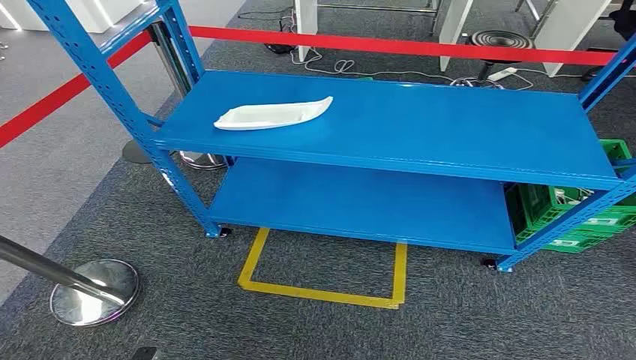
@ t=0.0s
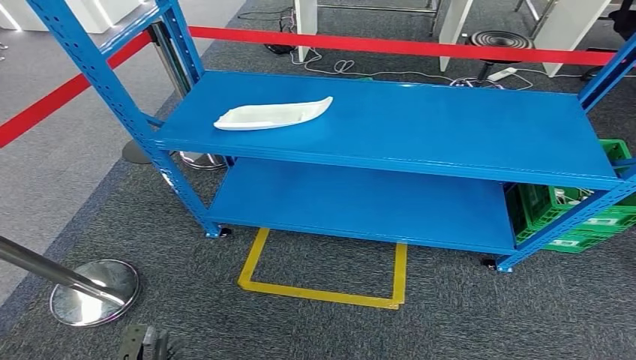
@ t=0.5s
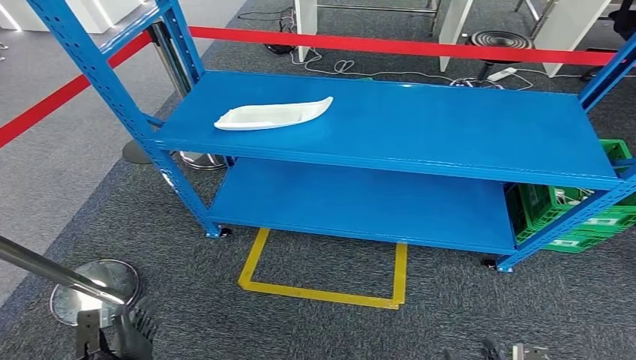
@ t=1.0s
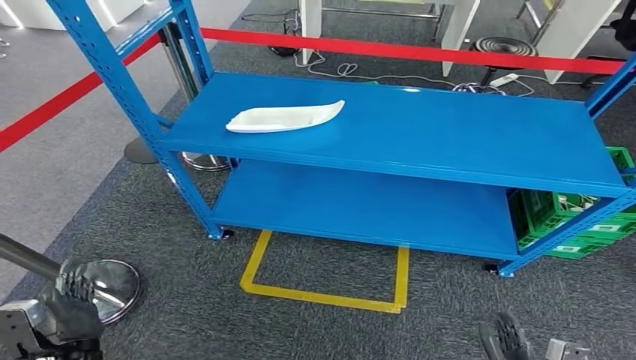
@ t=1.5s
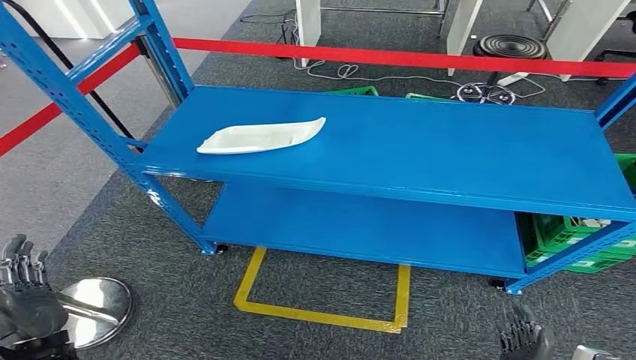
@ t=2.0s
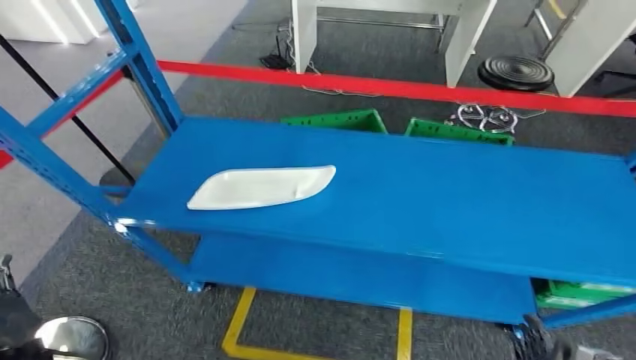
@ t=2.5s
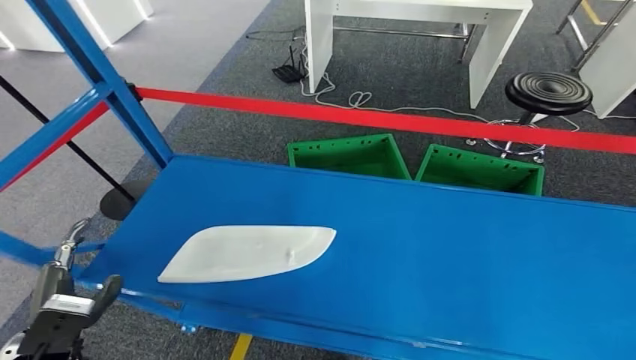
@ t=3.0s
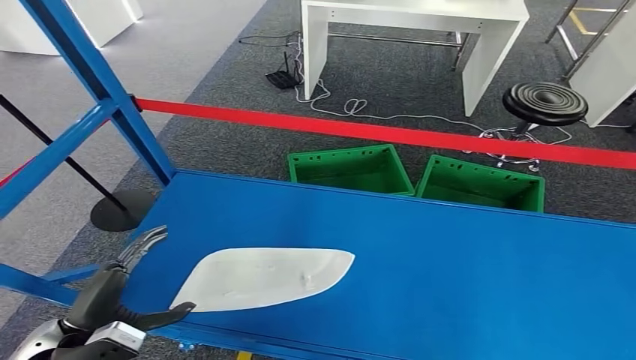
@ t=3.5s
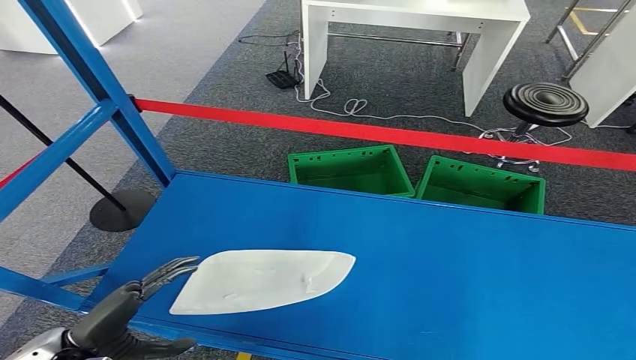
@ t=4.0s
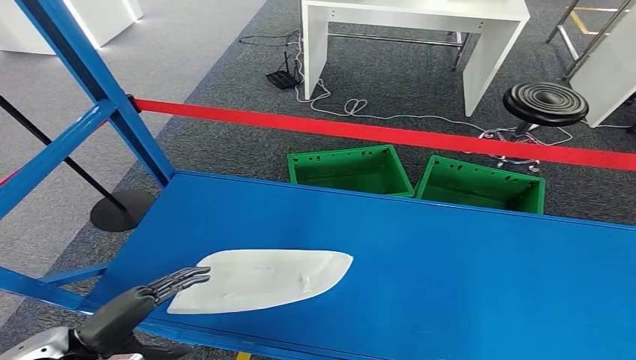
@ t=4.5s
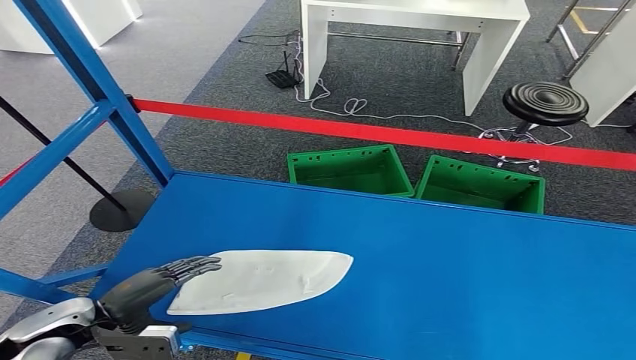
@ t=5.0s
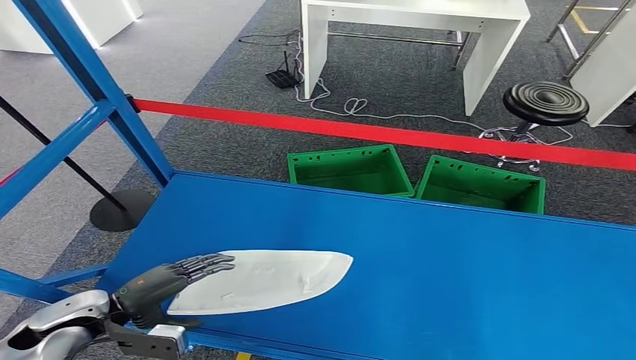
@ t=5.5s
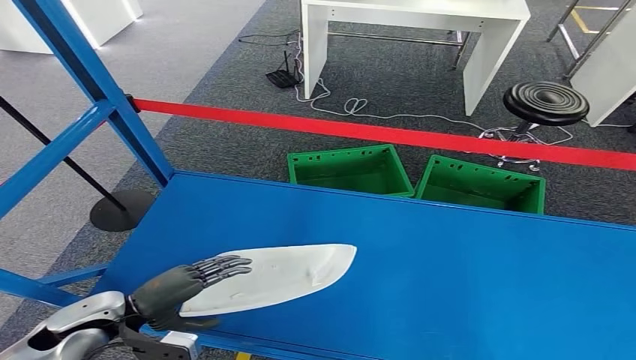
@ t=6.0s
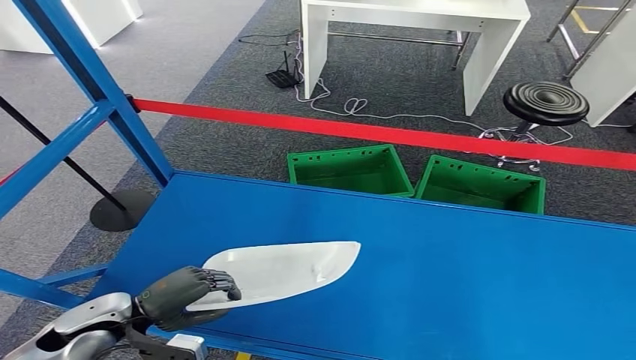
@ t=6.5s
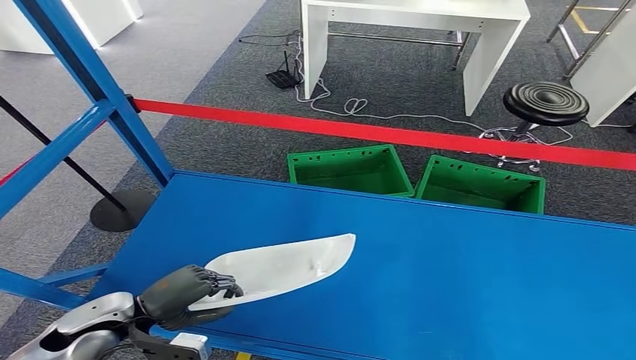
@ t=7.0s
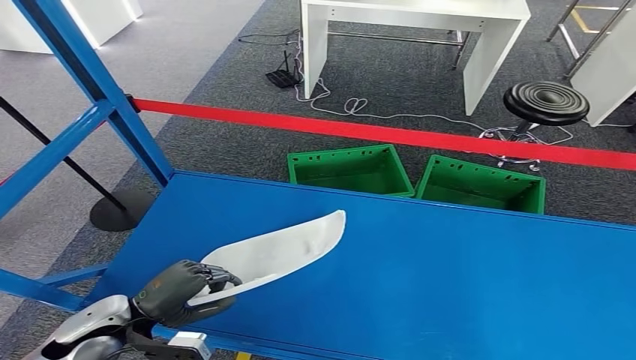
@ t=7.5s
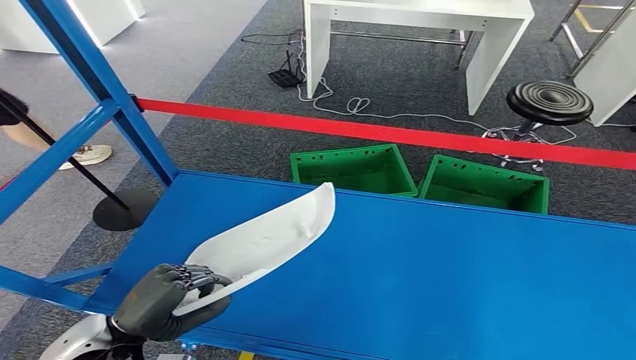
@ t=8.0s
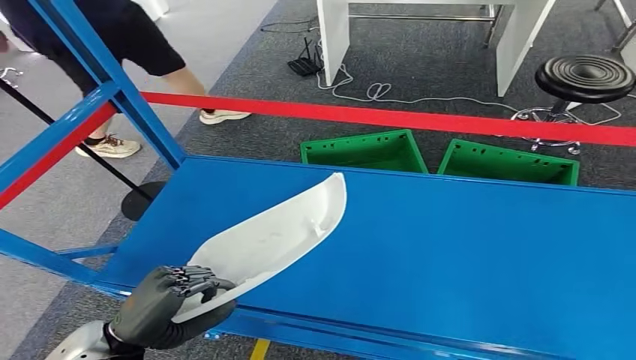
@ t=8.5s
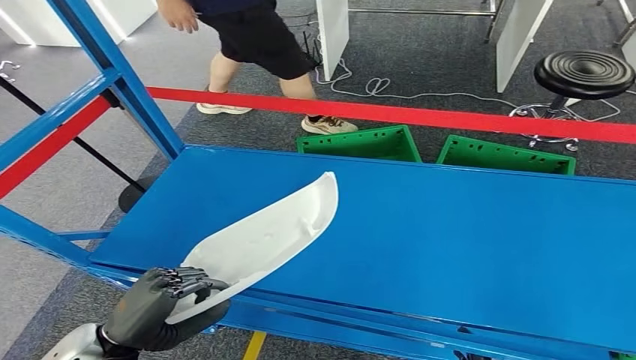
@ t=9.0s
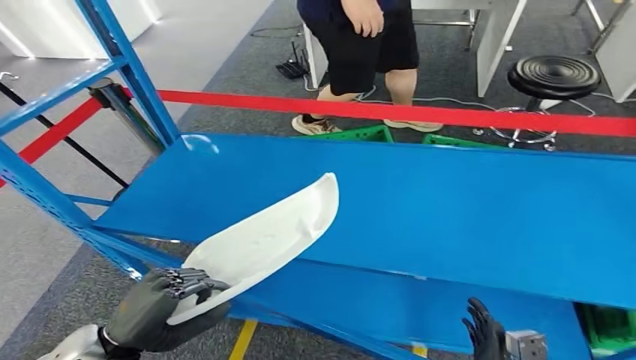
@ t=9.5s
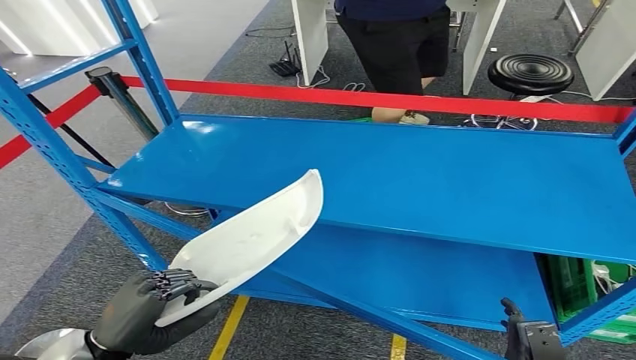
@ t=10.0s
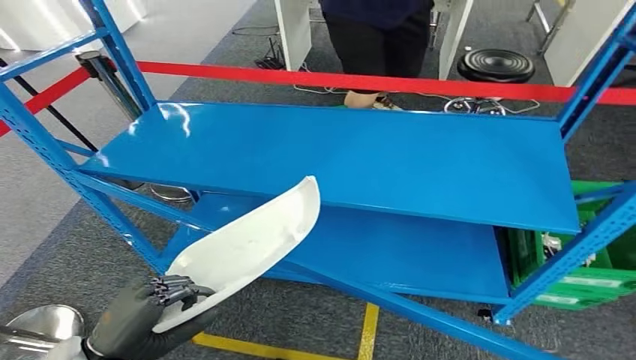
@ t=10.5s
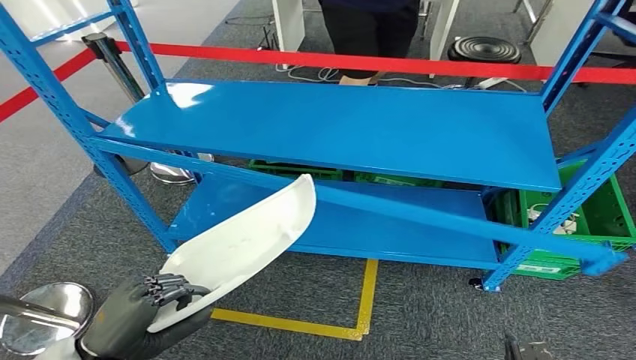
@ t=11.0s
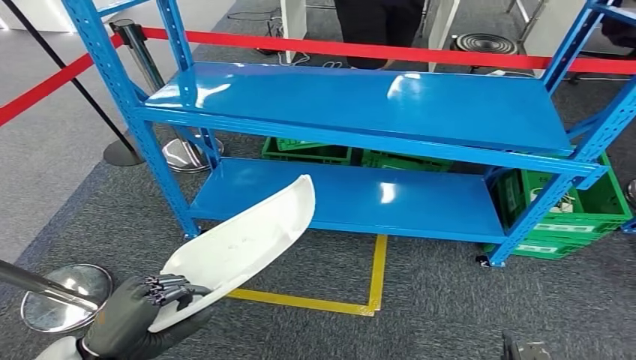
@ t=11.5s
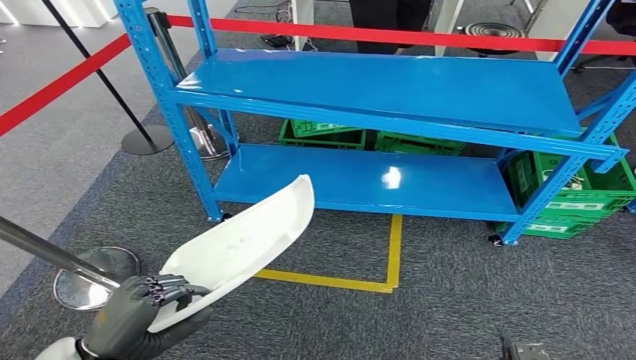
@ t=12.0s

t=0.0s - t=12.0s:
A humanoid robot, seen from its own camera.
Step, t=0.0s - t=8.5s: Pick up the small component from the shelf.
t=4.0s - t=6.0s: The left hand moves forward, approximately 5 cm.
t=6.0s - t=8.0s: The left hand moves about 5 cm.

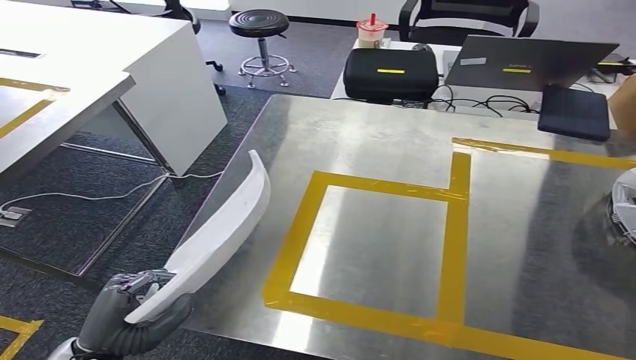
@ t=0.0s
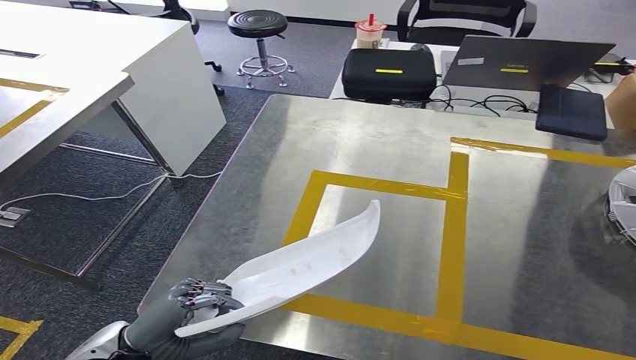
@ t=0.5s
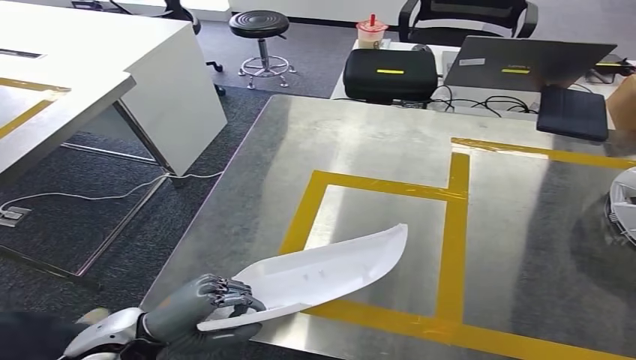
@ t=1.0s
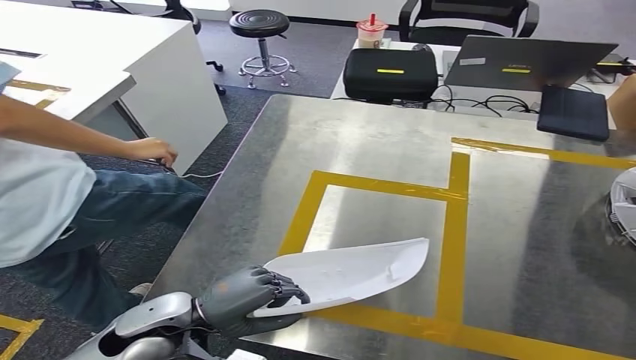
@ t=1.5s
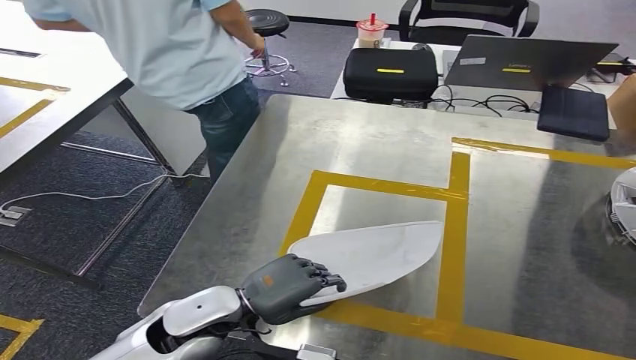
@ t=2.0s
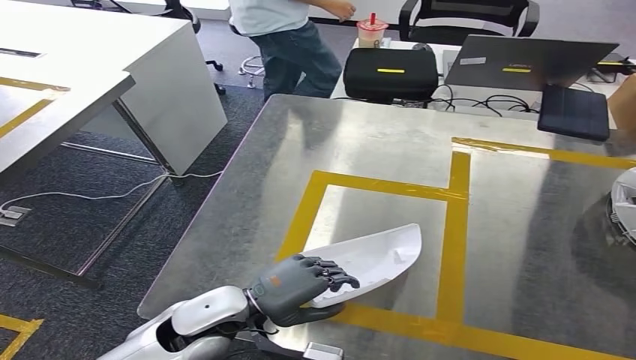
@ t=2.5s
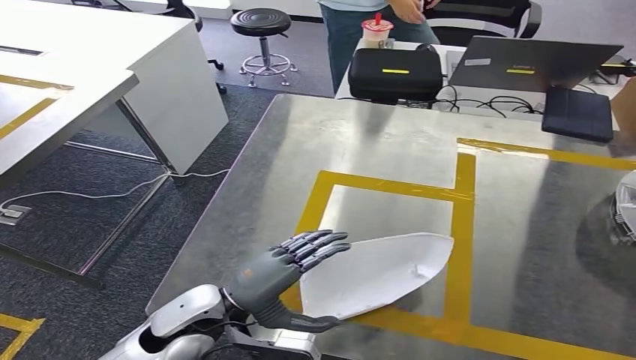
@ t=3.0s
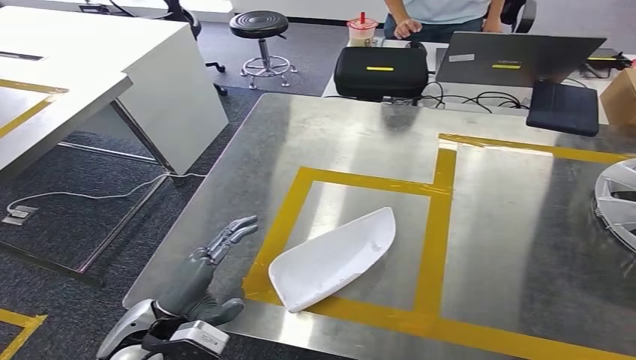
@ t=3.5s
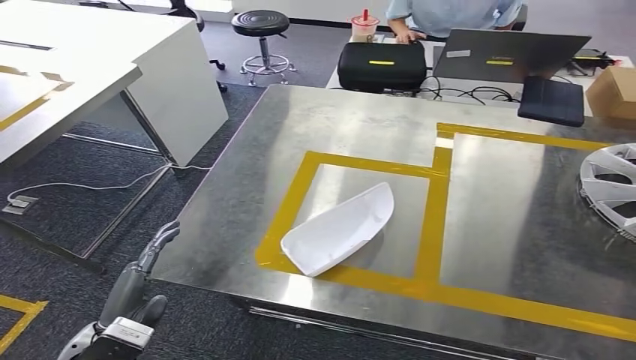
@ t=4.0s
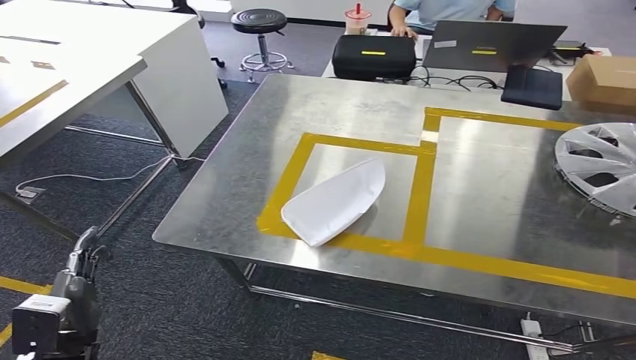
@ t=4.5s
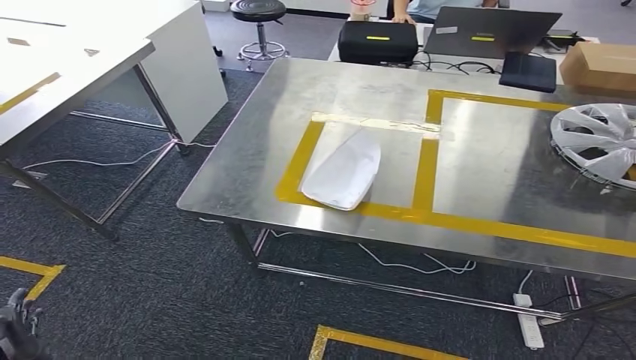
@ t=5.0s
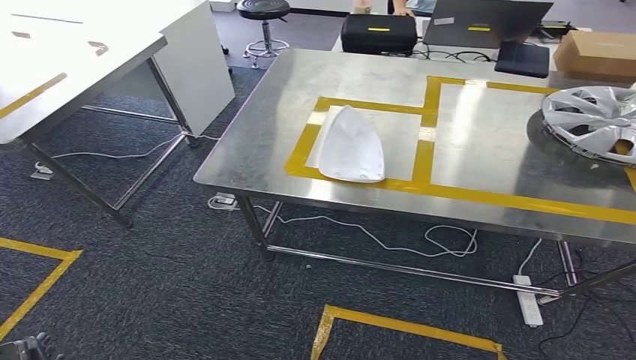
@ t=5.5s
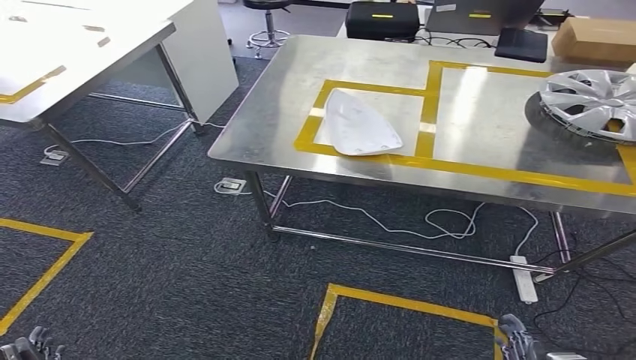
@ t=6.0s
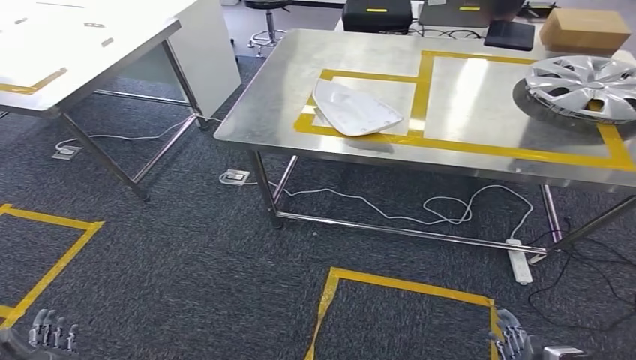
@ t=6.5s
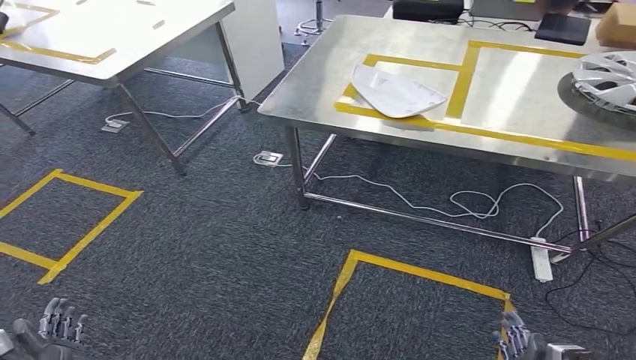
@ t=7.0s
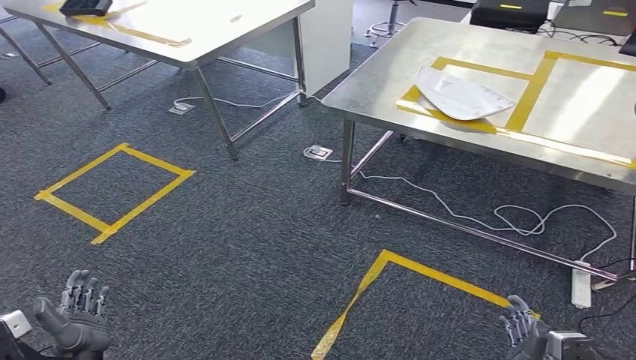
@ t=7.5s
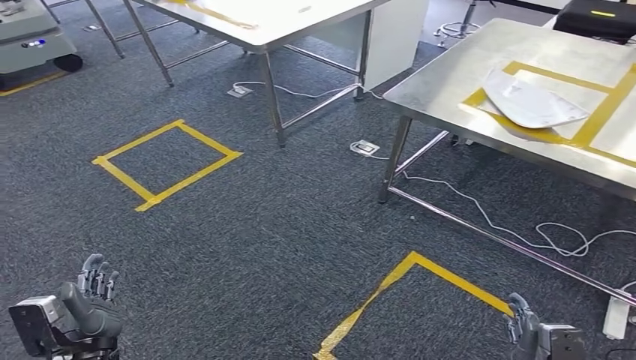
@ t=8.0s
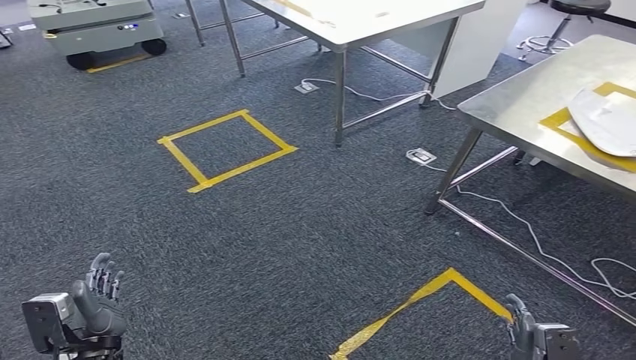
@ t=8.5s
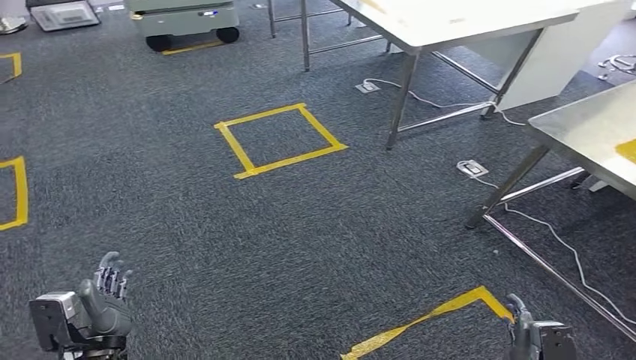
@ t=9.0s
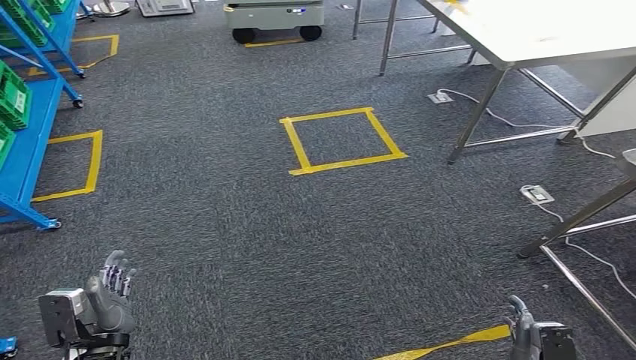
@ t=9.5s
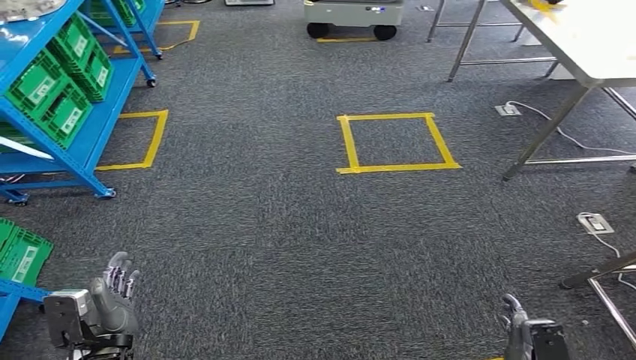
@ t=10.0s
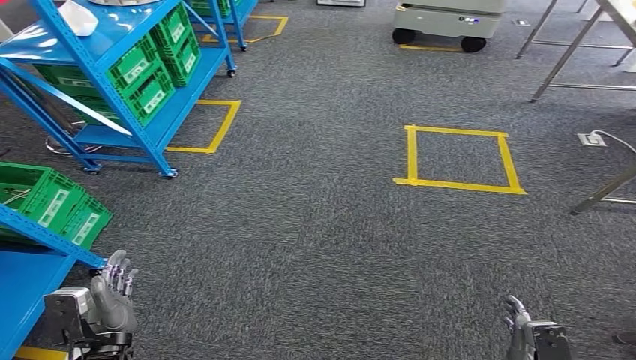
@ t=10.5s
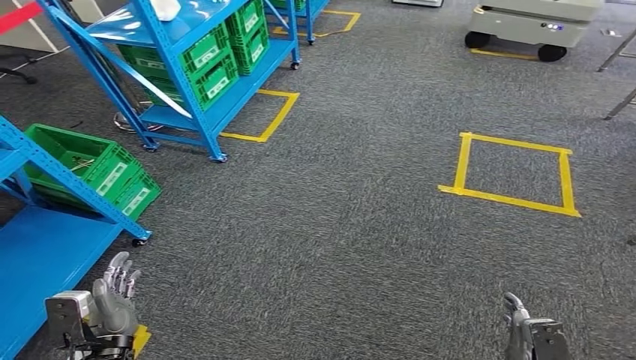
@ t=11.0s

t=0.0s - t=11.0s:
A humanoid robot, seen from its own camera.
Step, t=0.5s - t=4.0s: Insert the small component into the corresponding slot on the workbench.
